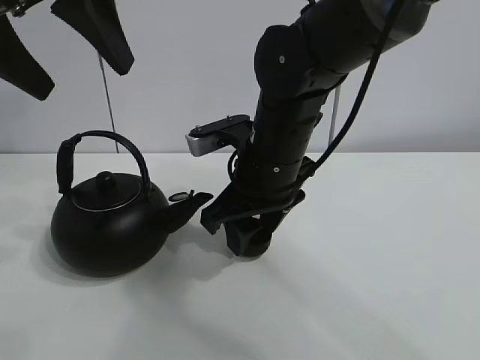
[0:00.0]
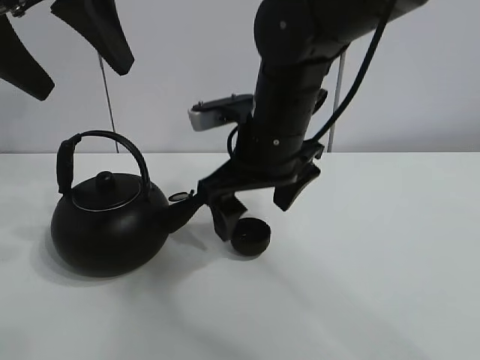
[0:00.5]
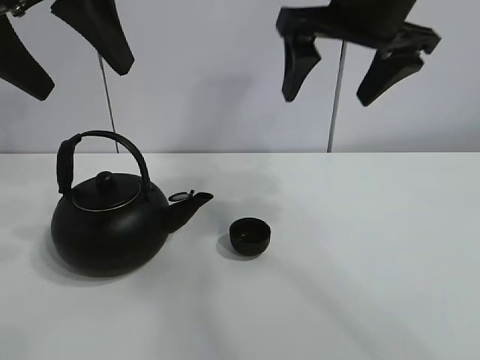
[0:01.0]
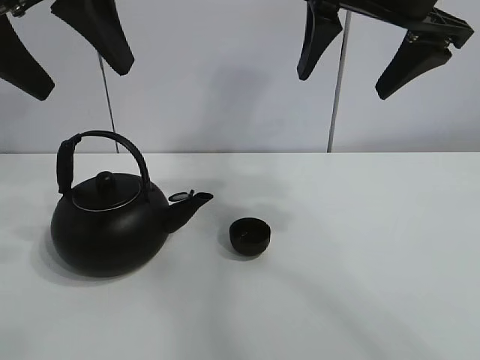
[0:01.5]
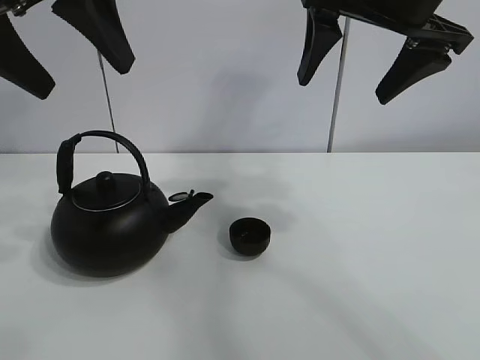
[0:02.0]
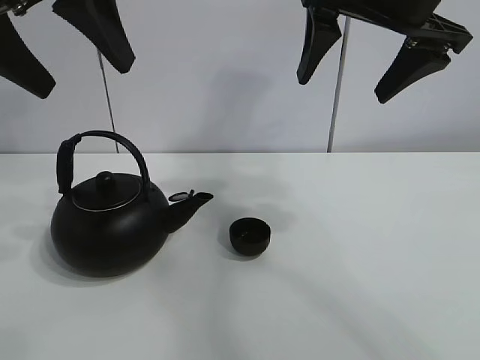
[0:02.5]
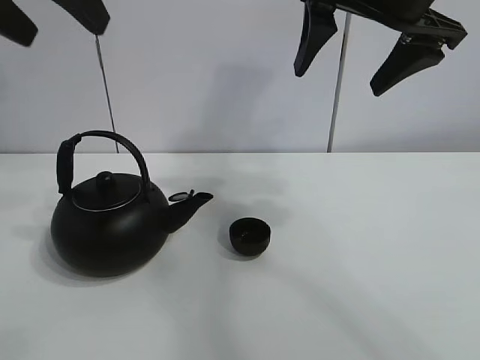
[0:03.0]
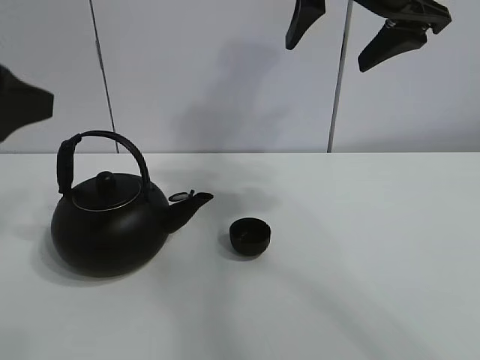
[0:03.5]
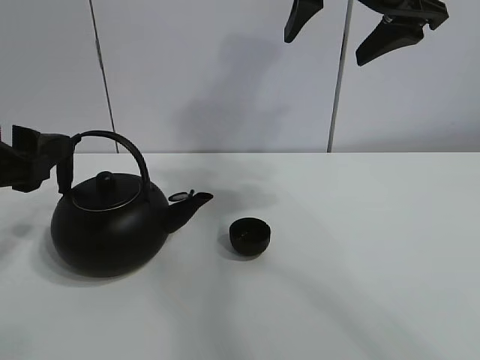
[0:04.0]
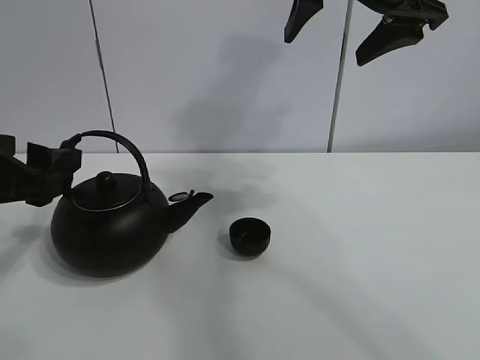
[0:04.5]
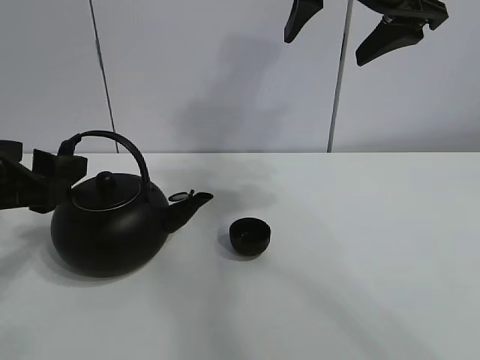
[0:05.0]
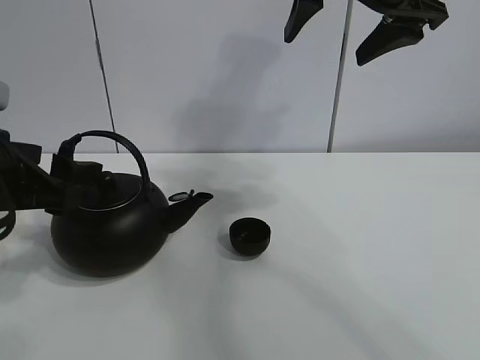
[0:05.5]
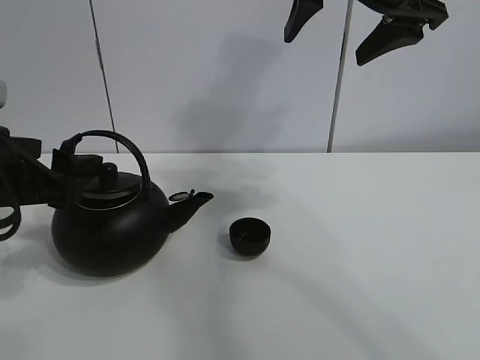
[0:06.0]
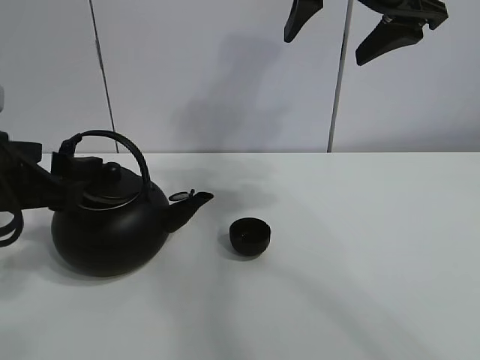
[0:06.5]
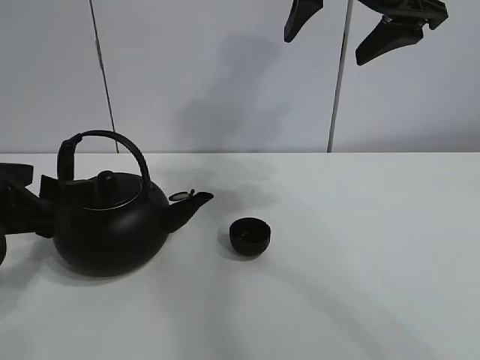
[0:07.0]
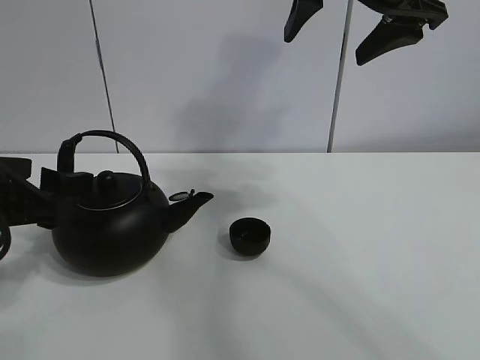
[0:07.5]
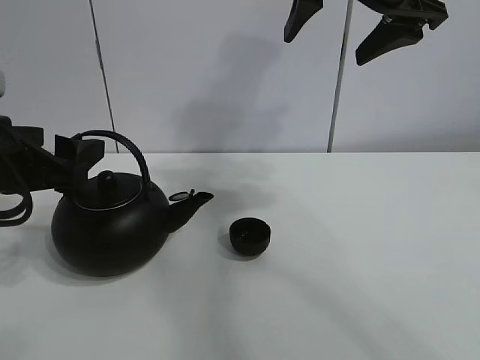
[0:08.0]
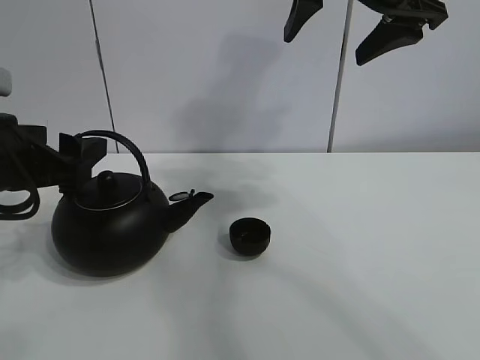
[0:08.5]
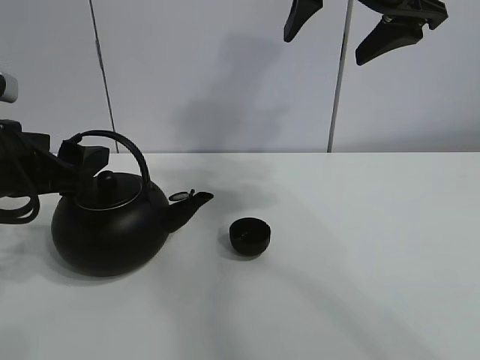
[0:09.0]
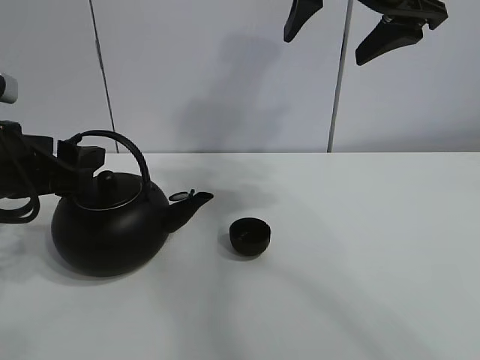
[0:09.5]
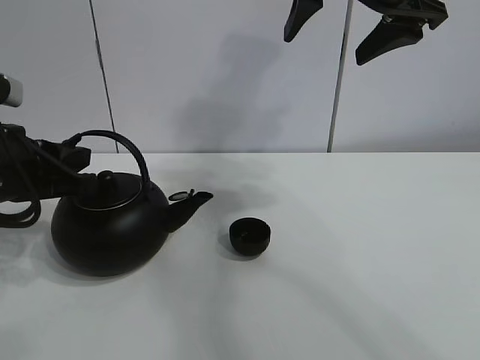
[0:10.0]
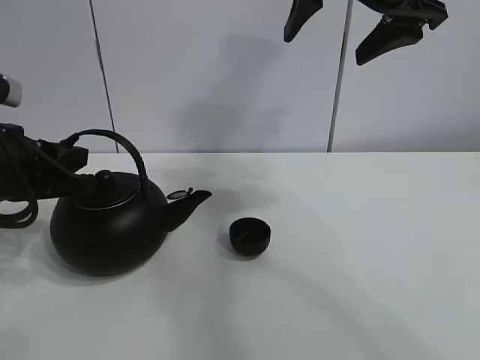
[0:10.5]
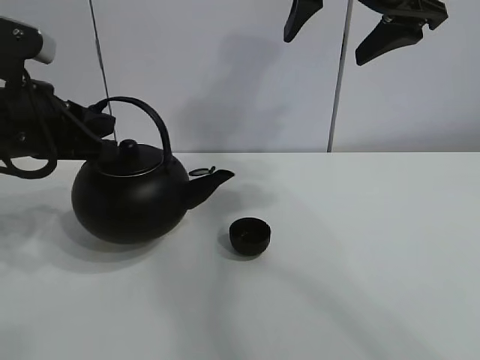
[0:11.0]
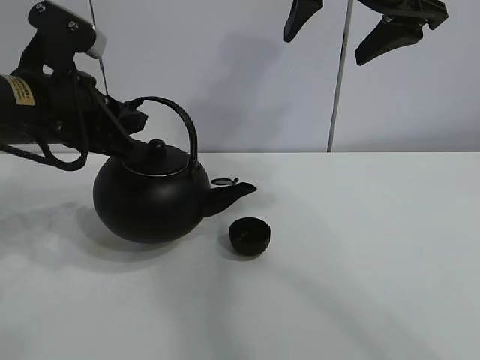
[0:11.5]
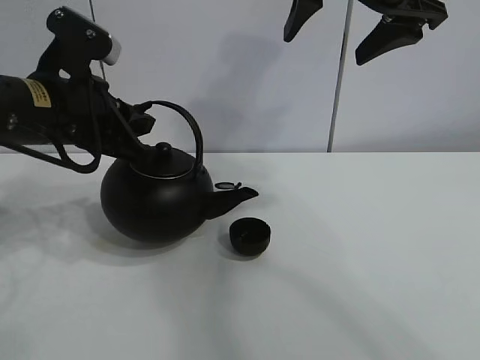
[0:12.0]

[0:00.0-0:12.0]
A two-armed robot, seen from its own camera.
Task of the whole recording: pour tea into the teacup.
Step, 0:00.5 to 0:10.0: Pick up the teapot with the left gripper.
0:00.0 to 0:02.0: The right gripper moves upward and to the right, some 20 cm, and opens.
0:02.0 to 0:04.0: The left gripper goes approximately 15 cm downward.
0:04.0 to 0:08.0: The grippers move only a little.
0:08.0 to 0:10.0: The left gripper closes up.
0:10.0 to 0:12.0: The left gripper shifts roughly 5 cm to the right.

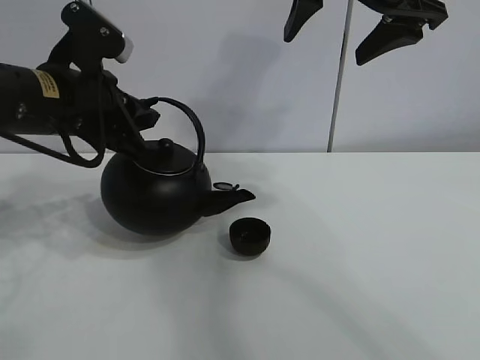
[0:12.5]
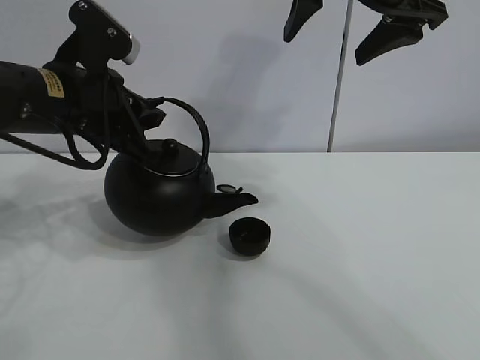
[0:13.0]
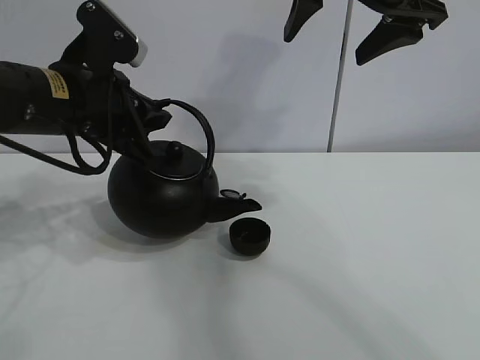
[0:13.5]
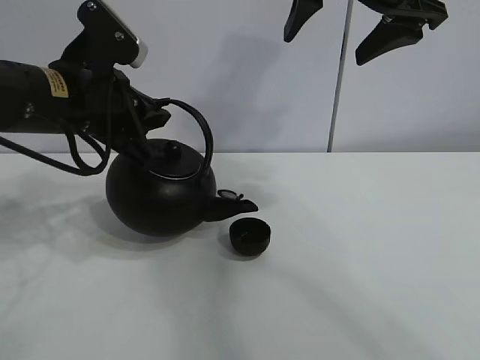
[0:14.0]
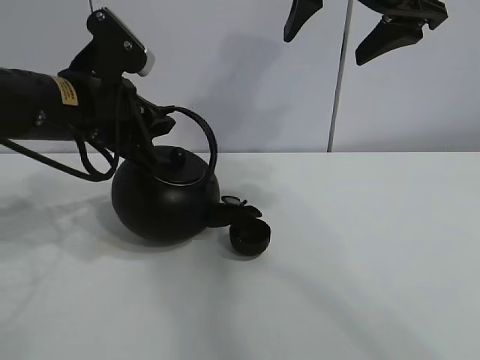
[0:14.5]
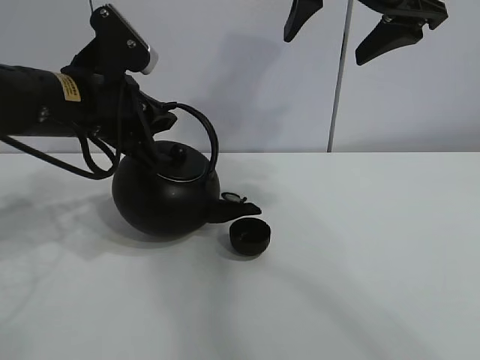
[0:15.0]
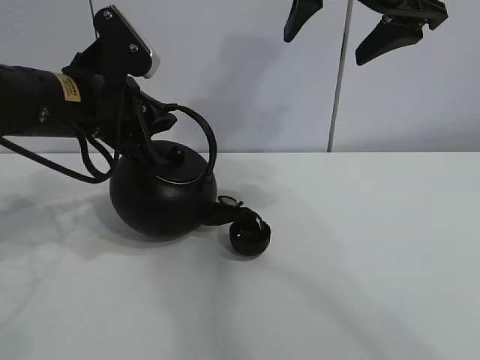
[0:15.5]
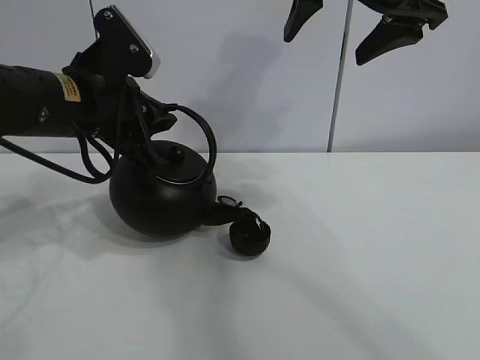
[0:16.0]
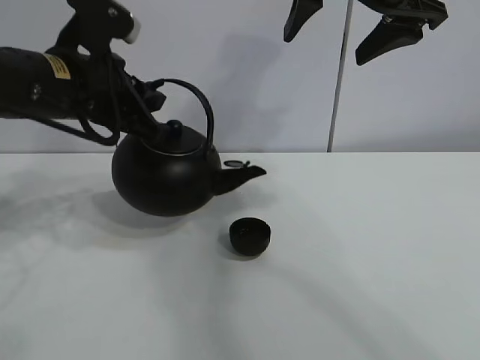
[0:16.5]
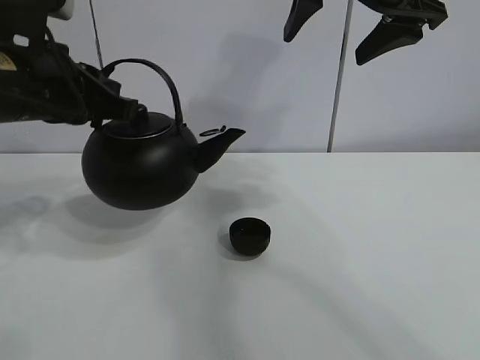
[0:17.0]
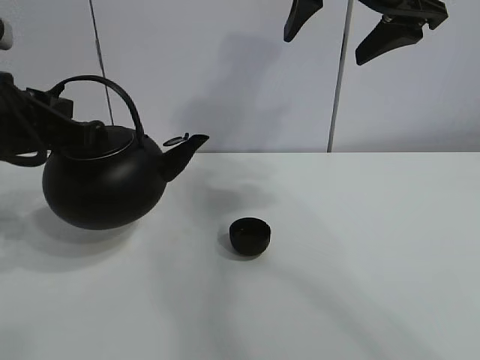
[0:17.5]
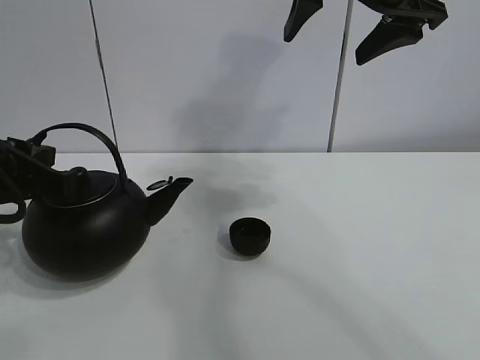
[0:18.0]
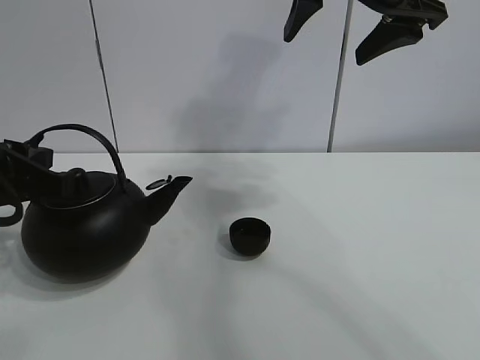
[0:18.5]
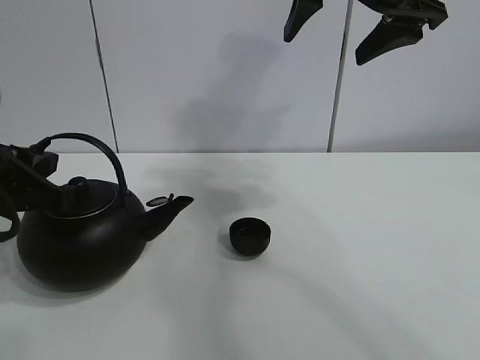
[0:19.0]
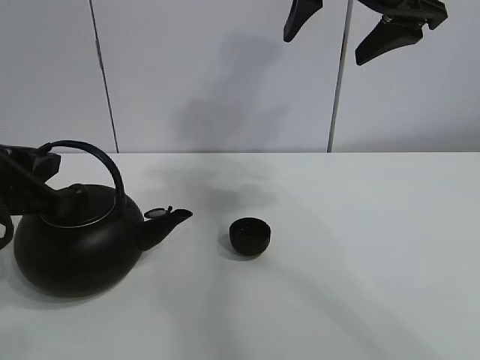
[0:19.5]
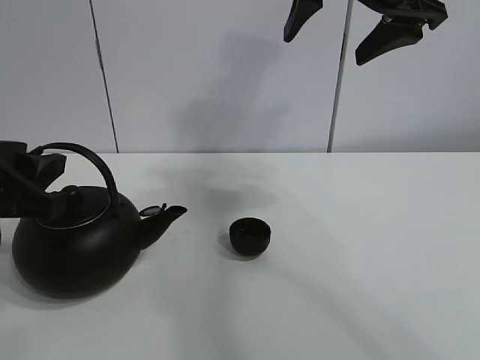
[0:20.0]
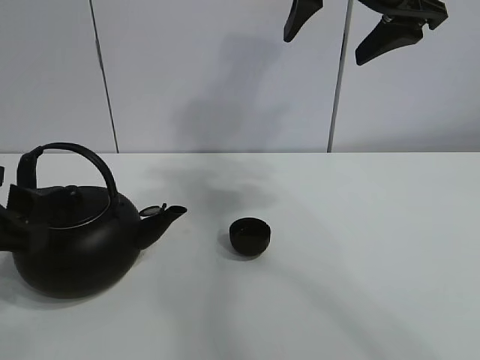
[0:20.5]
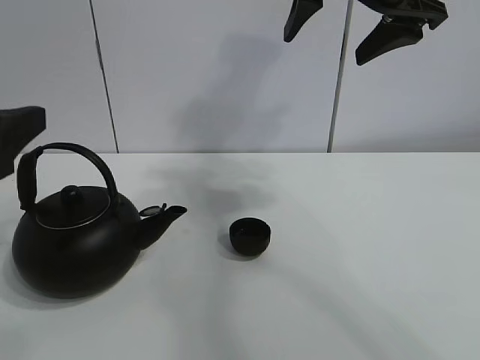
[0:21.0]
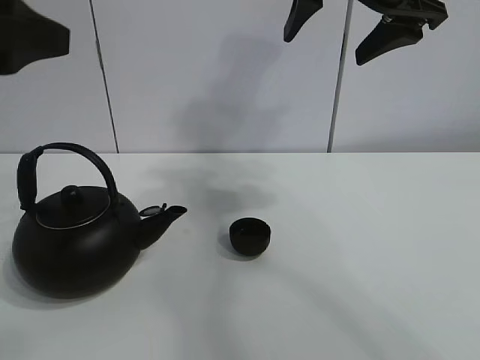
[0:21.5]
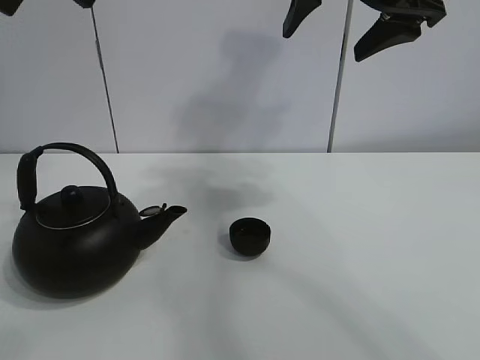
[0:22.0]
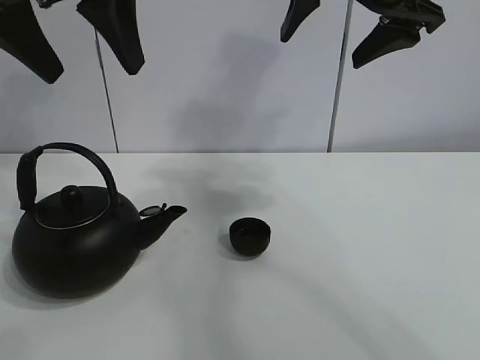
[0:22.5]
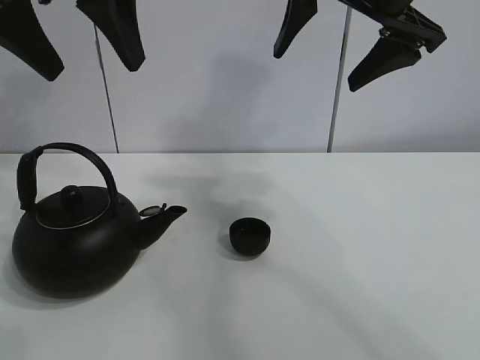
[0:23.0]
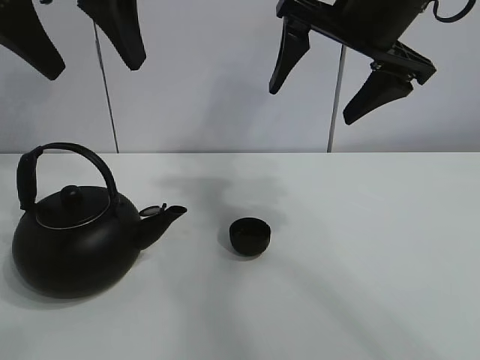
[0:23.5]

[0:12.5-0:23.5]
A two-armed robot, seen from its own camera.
Task of the whole recording: pour tea into the teacup.
Step, 0:12.5 to 0:16.0: Pour tea into the teacup with the left gripper.
0:12.5 to 0:16.0: The grippers make only small movements.
0:16.0 to 0:18.0: The left gripper travels backward and to the left by about 10 cm.
0:18.0 to 0:20.0: The left gripper opens its fingers.
0:20.0 to 0:21.5: The left gripper travels upward by roughly 15 cm, and opens.
0:21.5 to 0:23.5: The left gripper goes roughly 15 cm forward, upward and to the right.

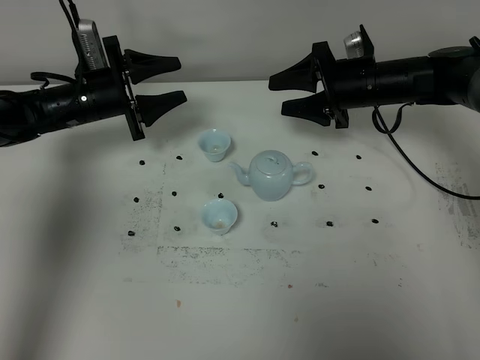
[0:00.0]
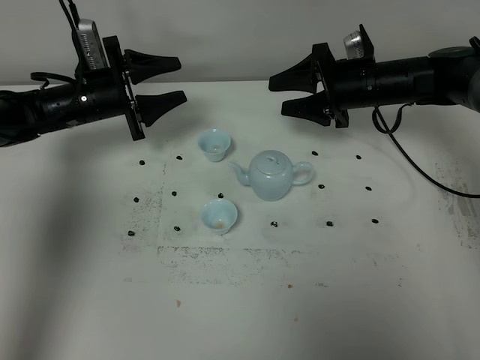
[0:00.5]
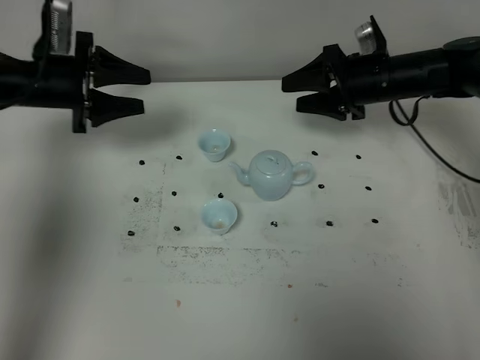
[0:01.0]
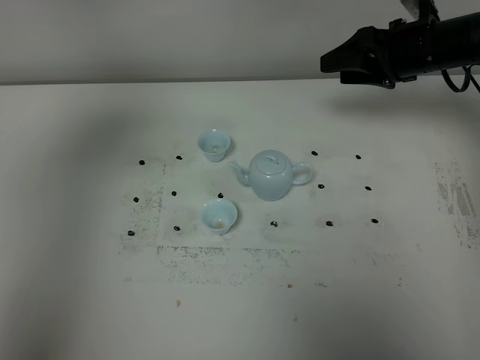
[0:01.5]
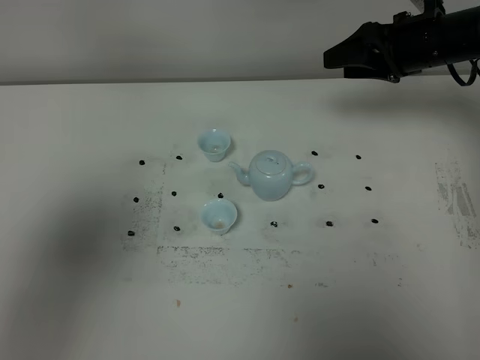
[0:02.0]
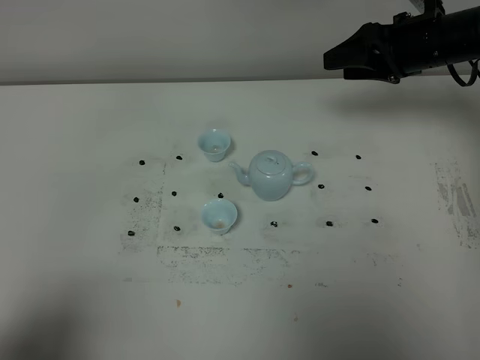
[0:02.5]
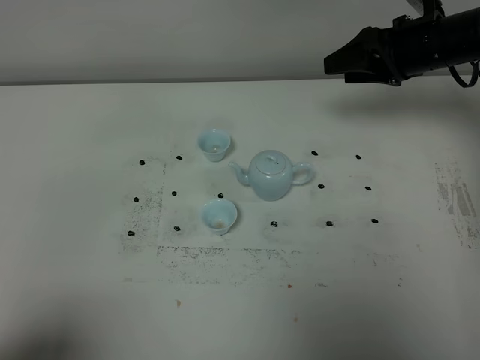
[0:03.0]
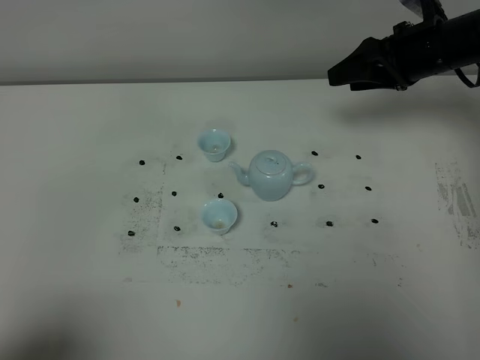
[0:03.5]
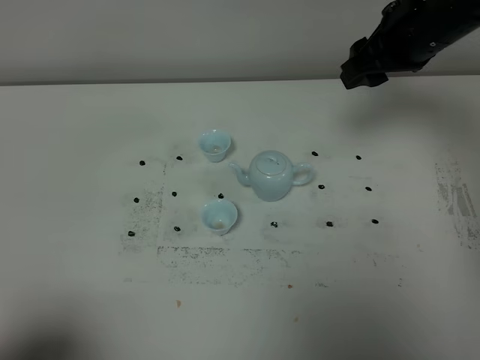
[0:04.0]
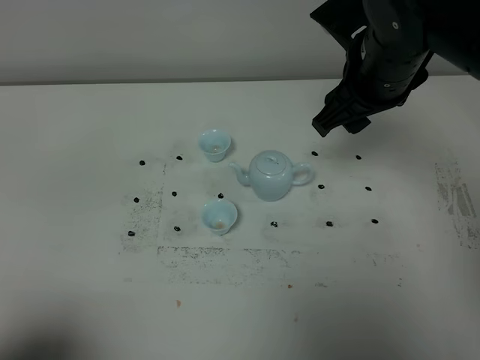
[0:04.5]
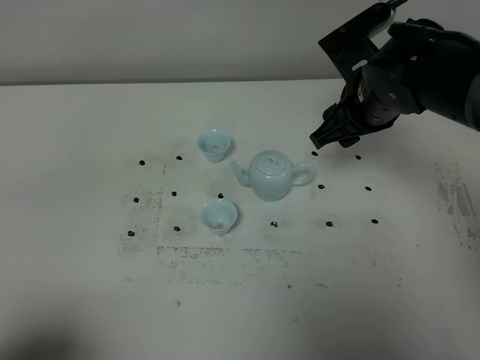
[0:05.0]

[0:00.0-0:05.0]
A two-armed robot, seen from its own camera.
Task of the whole recording: grasp the blue porcelain teapot and pour the tea into the two blue porcelain teacups one by one, put the blue porcelain teapot back in its original place.
0:00.0 to 0:02.5: The right gripper shifts about 10 cm upward and to the right. The left gripper is displaced backward by approximately 40 cm.
0:02.5 to 0:05.0: The right gripper moves to the left and backward, about 10 cm.
